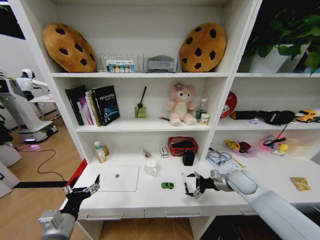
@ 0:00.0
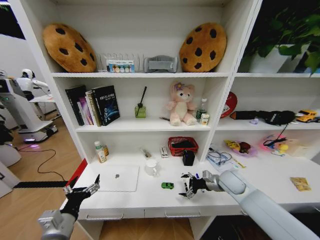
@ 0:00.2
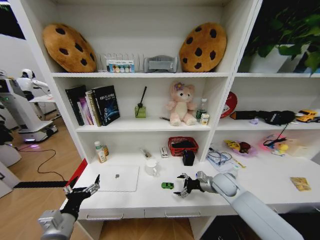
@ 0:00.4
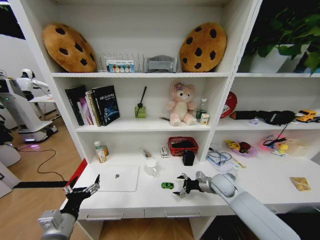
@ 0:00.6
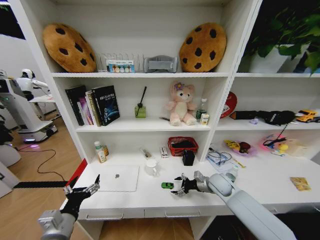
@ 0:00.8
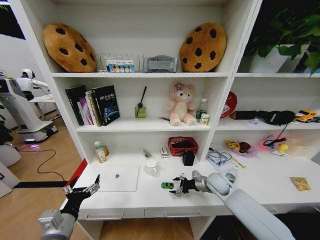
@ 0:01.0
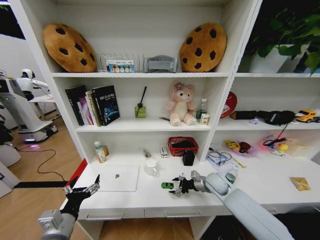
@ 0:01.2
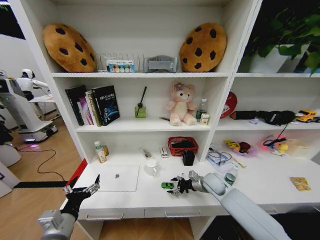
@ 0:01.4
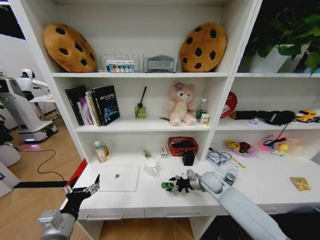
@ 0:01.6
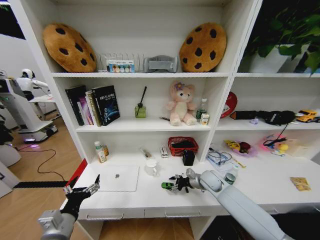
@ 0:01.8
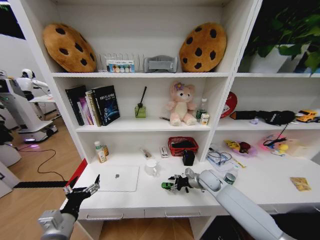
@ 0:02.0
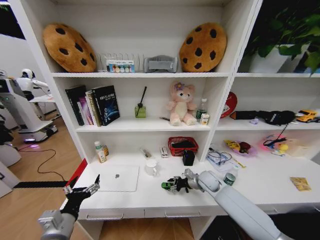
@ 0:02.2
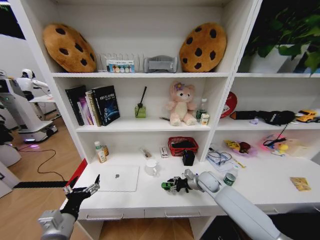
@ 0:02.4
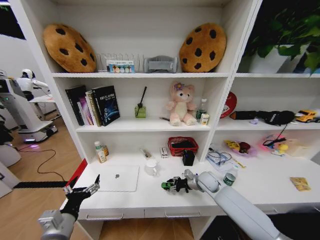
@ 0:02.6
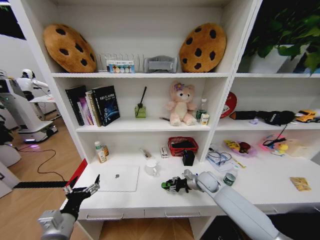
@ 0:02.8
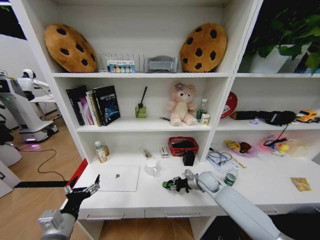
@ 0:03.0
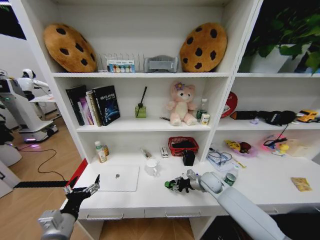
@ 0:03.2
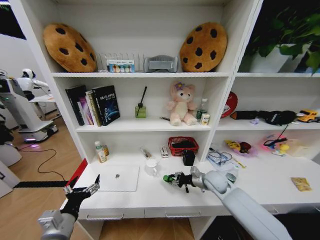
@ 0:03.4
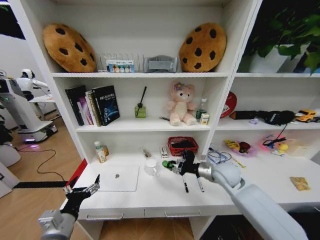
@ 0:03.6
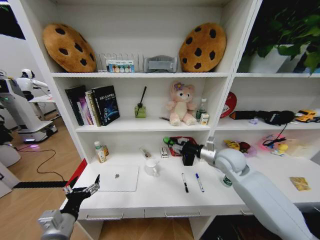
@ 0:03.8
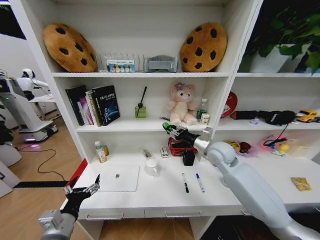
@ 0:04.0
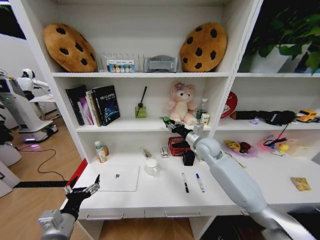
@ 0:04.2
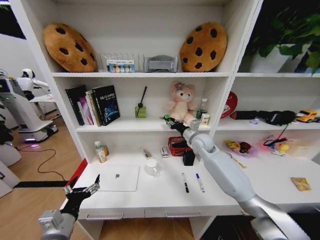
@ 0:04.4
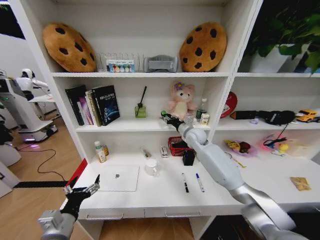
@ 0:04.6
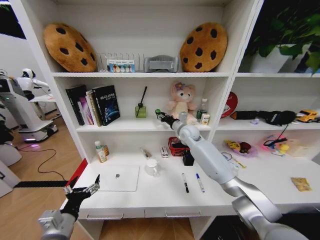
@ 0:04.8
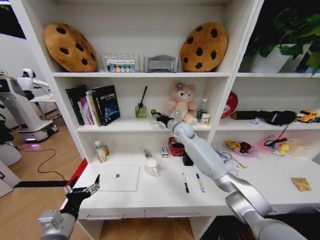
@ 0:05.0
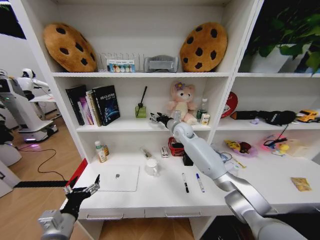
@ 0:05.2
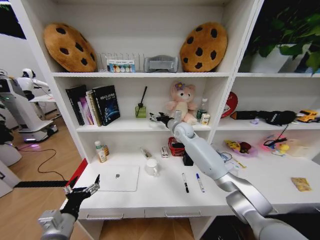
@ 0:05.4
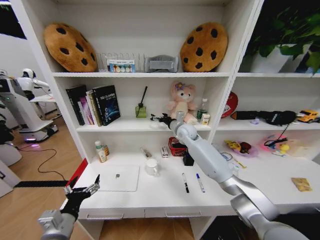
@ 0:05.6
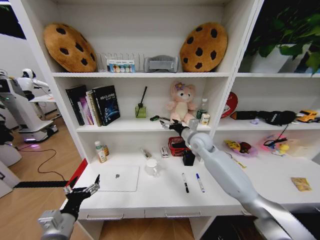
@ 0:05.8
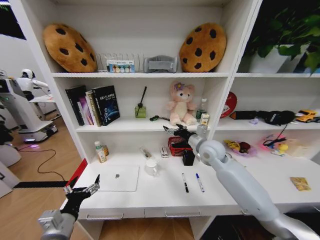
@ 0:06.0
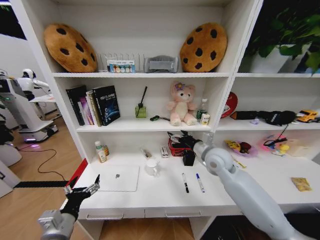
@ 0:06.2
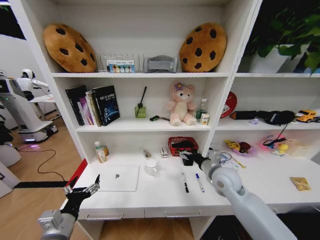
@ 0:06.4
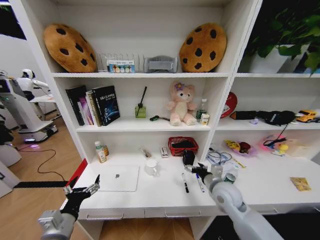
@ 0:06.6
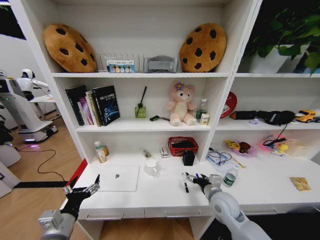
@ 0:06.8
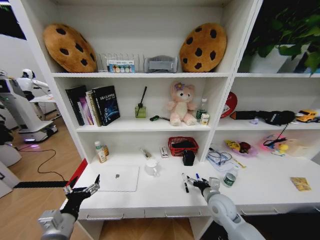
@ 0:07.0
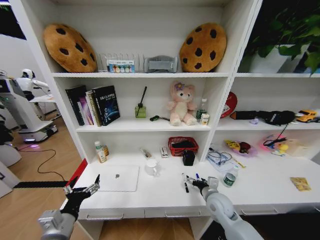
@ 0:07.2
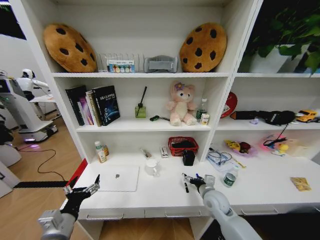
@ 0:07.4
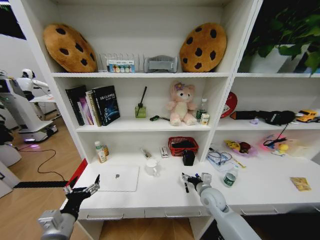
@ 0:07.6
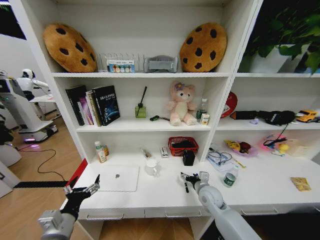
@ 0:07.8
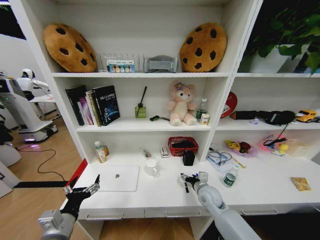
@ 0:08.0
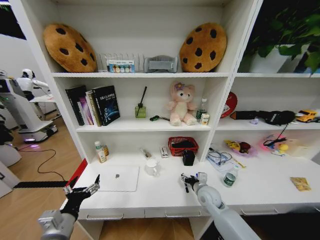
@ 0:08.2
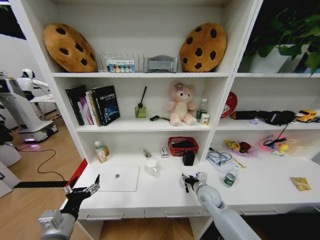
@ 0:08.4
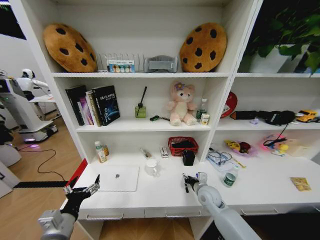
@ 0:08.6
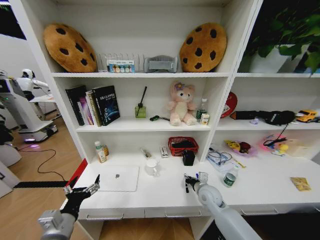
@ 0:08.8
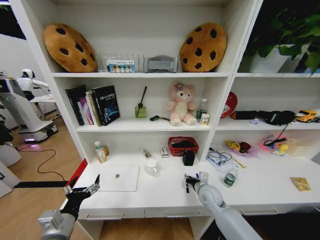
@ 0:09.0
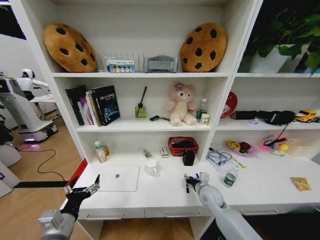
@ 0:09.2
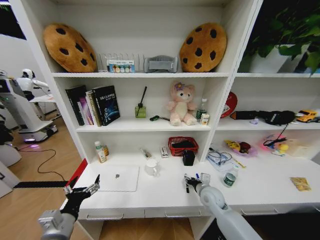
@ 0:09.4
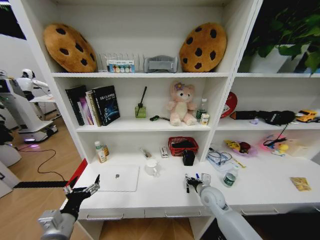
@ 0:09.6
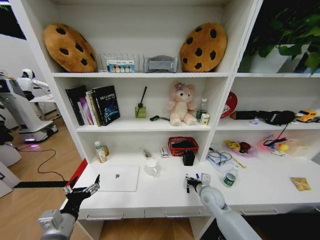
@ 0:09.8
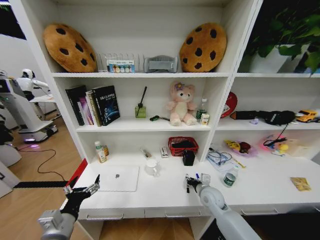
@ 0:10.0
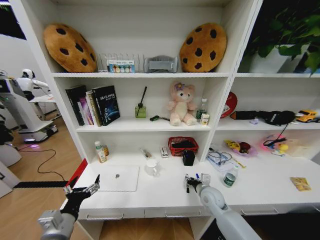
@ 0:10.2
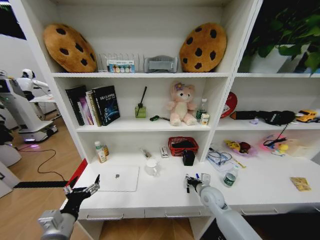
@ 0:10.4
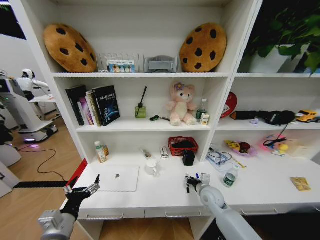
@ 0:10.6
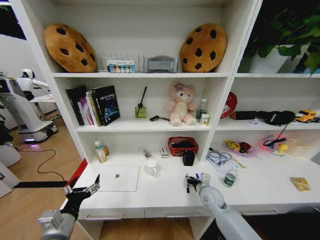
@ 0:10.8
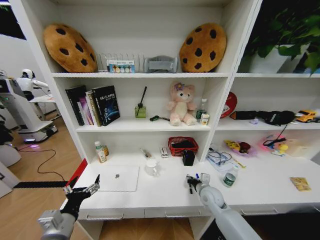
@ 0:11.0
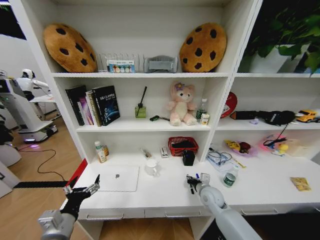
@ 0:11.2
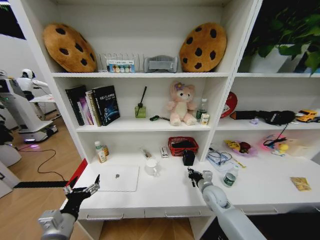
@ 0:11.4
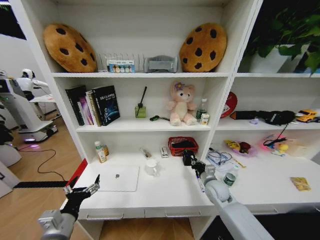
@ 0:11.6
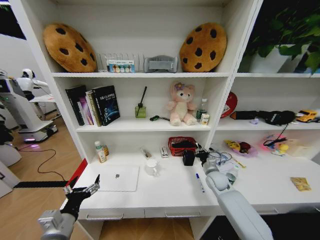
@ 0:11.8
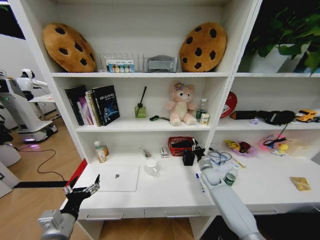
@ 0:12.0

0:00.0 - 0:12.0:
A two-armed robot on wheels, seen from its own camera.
Task of the whole recording: Organize the objects on the table.
0:00.0 - 0:01.6: The right gripper is displaced to the left and downward by roughly 10 cm.
0:01.6 - 0:03.0: The right gripper closes its fingers.
0:03.0 - 0:04.4: The right gripper goes approximately 20 cm upward and forward.
0:04.4 - 0:06.0: The right gripper moves backward, about 5 cm, and opens.
0:06.0 - 0:07.6: The right gripper shifts approximately 25 cm downward and backward.
0:07.6 - 0:09.0: The right gripper closes.
0:09.0 - 0:10.4: The two grippers keep their place.
0:10.4 - 0:12.0: The right gripper is displaced forward and to the right by approximately 10 cm.

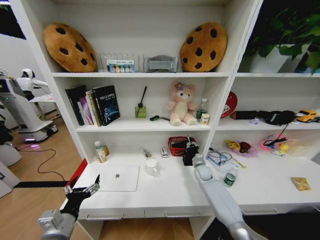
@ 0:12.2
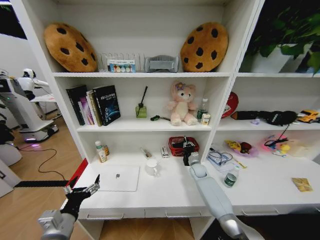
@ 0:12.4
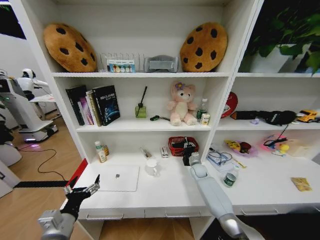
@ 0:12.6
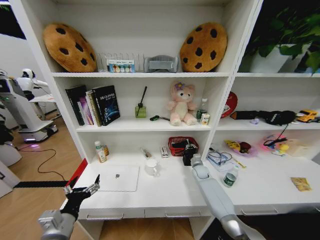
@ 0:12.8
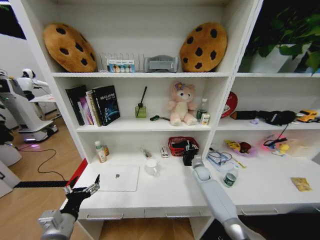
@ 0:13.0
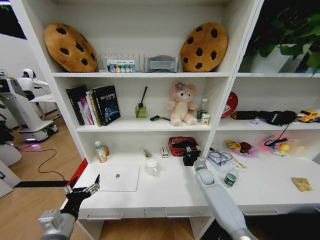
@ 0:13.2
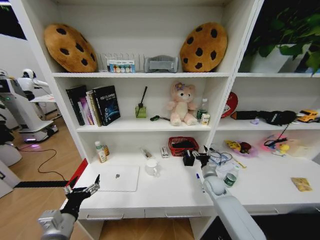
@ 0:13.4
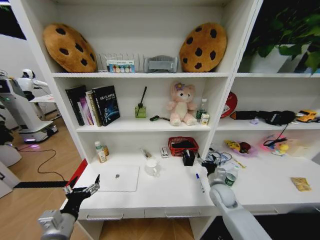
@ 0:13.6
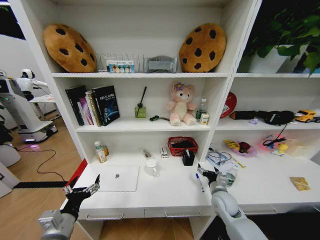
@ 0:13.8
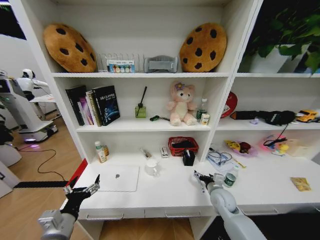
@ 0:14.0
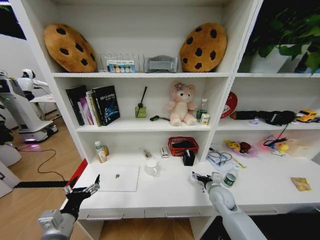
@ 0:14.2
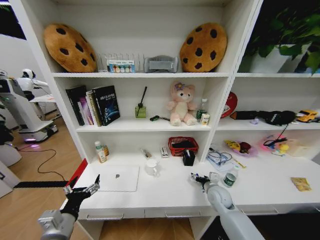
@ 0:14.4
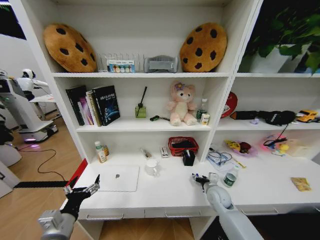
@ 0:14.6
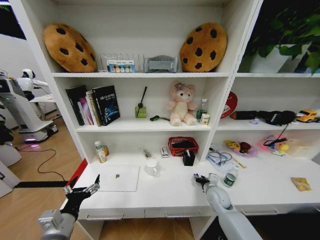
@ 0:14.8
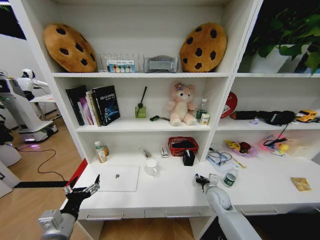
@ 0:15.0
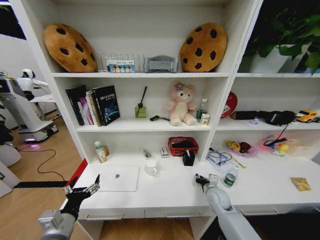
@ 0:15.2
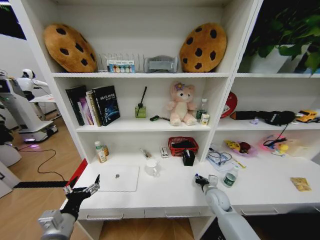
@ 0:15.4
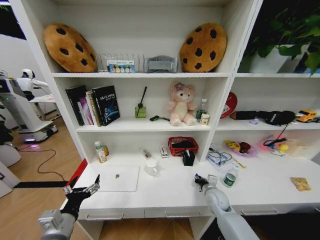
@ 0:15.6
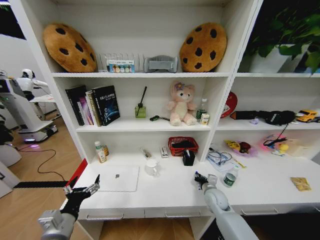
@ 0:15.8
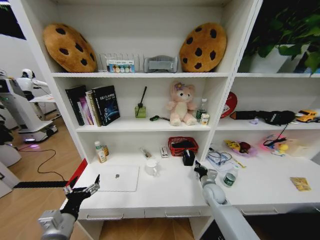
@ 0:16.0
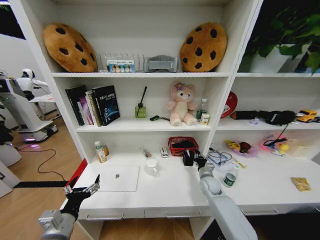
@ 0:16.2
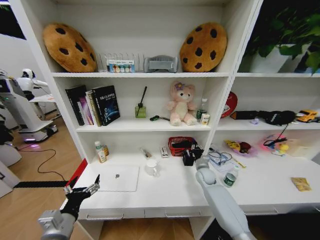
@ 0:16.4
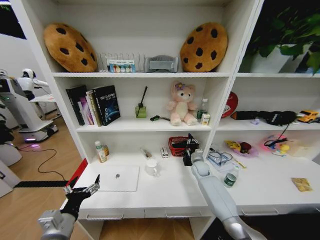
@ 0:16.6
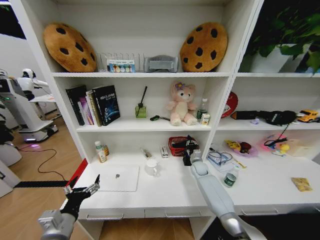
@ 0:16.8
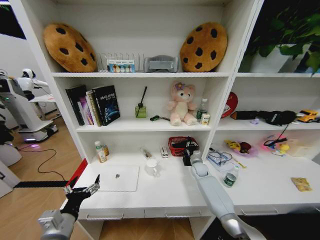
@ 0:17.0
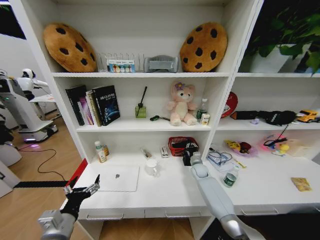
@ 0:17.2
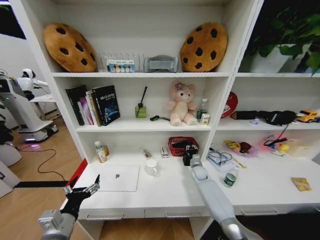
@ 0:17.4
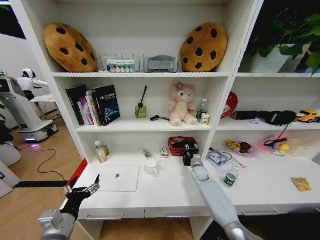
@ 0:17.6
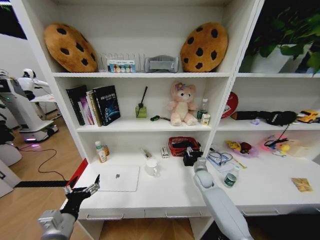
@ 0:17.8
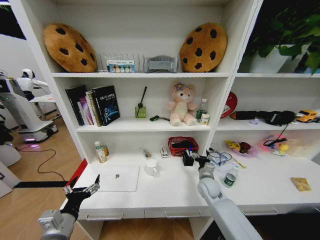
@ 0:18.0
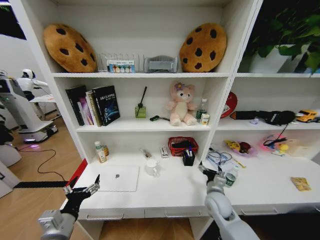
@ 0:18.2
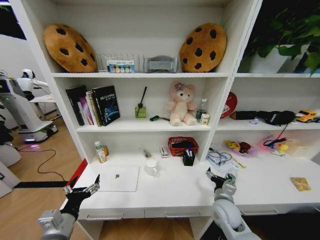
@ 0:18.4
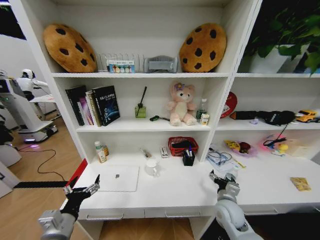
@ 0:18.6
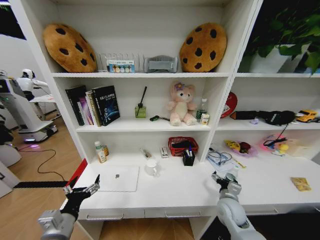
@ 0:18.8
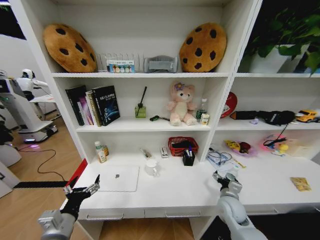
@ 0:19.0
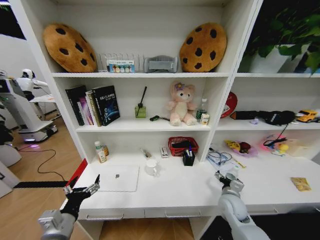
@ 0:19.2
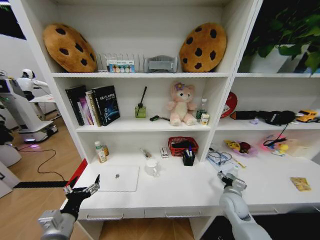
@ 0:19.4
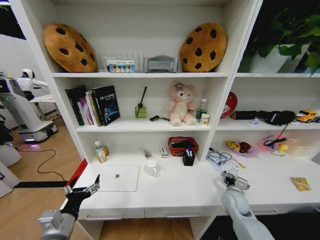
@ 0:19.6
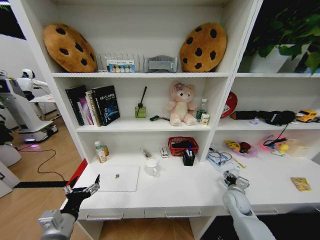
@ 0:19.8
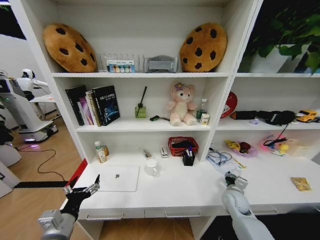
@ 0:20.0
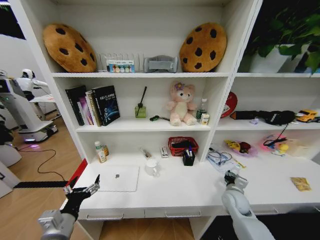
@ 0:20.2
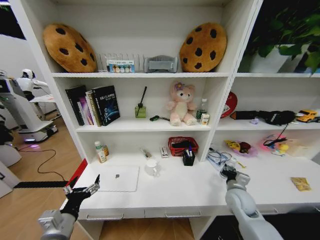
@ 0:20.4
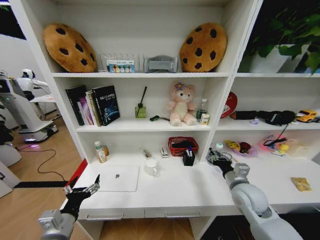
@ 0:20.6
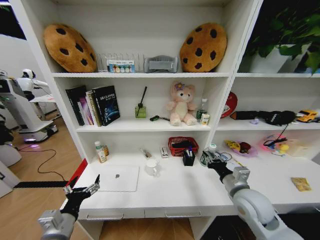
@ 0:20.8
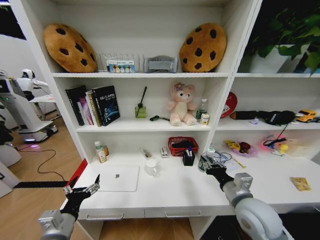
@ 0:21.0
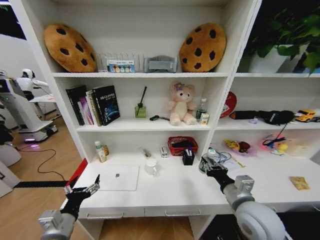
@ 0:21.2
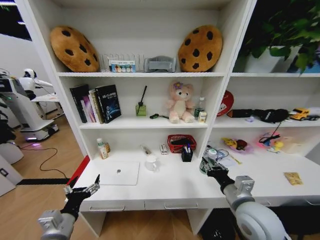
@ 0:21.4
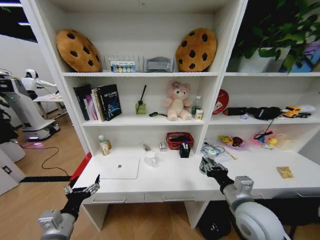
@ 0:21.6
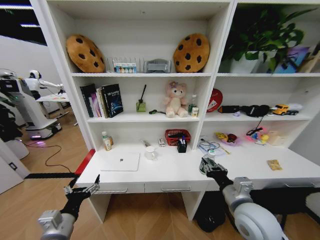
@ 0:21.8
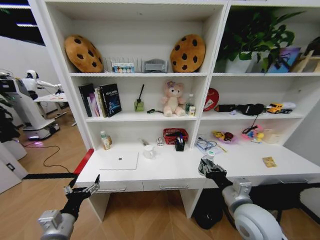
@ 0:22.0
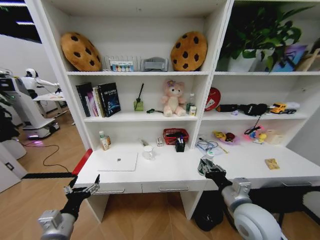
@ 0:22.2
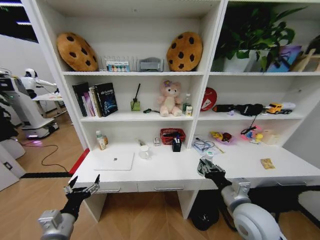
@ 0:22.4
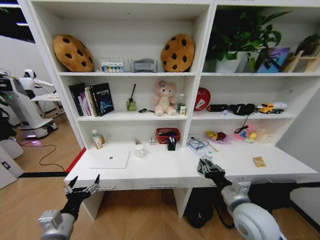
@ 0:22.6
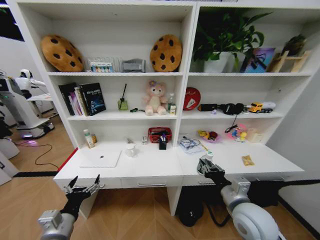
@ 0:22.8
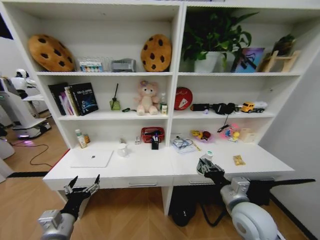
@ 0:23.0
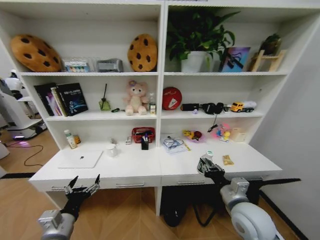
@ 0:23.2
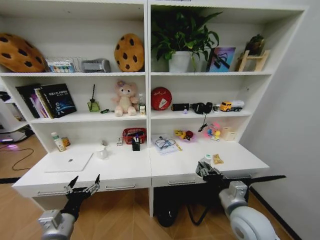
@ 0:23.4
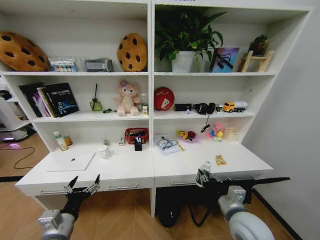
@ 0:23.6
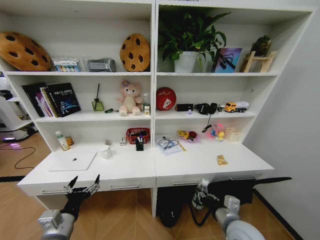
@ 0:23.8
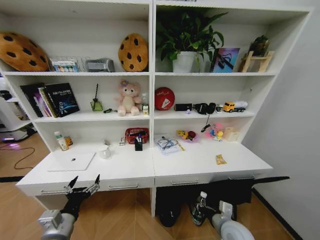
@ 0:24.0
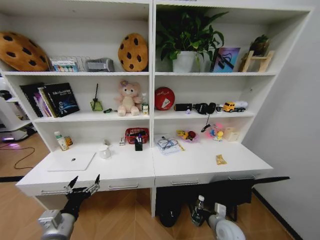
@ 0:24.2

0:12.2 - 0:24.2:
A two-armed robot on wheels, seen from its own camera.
Task of the whole recording: Organize the objects on the table.
0:12.2 - 0:13.8: The right gripper is displaced backward by roughly 20 cm, and opens its fingers.
0:13.8 - 0:15.2: The right gripper closes up.
0:15.2 - 0:16.6: The right gripper goes some 15 cm forward.
0:16.6 - 0:18.2: The right gripper travels backward by roughly 20 cm, and opens up.
0:18.2 - 0:19.8: The right gripper moves to the right, roughly 10 cm.
0:19.8 - 0:21.2: The right gripper heads upward, backward and to the left, covering roughly 20 cm, and closes its fingers.
0:22.6 - 0:24.2: The right gripper goes approximately 20 cm downward.
